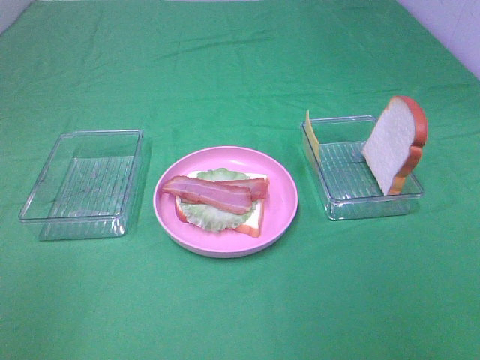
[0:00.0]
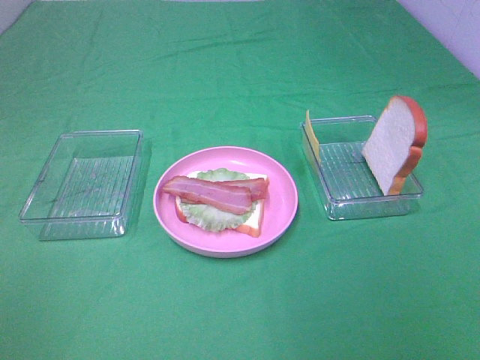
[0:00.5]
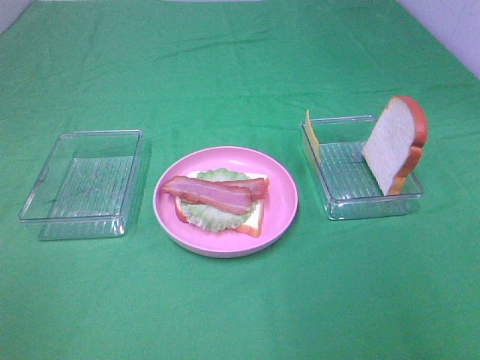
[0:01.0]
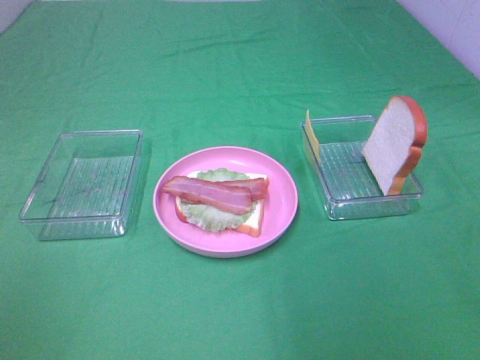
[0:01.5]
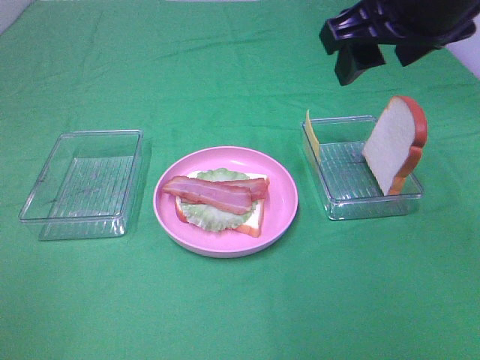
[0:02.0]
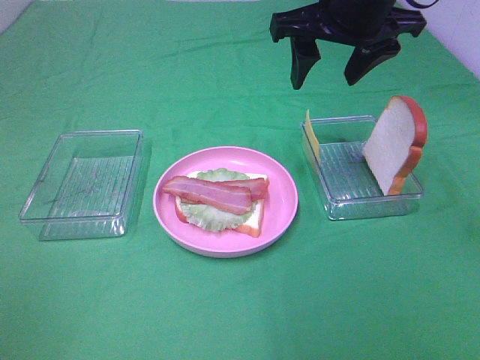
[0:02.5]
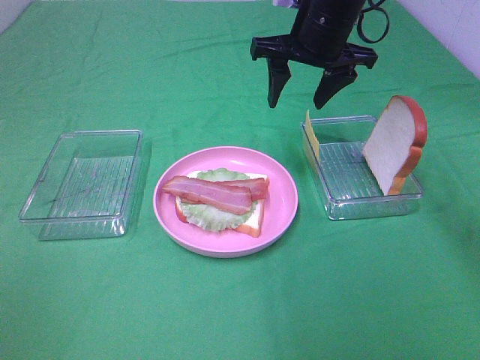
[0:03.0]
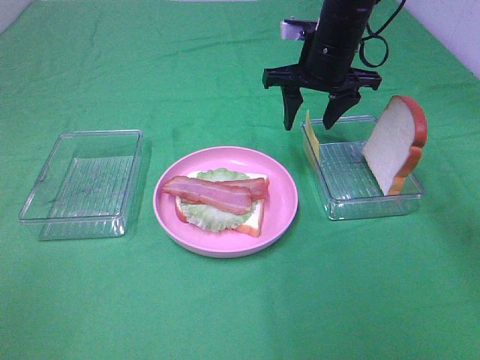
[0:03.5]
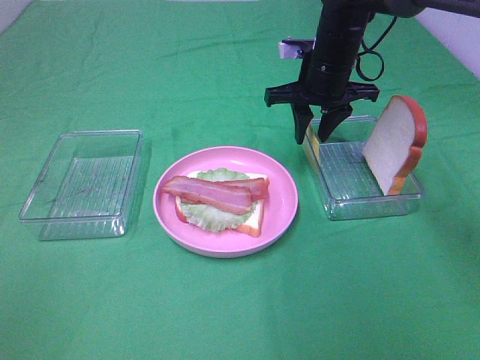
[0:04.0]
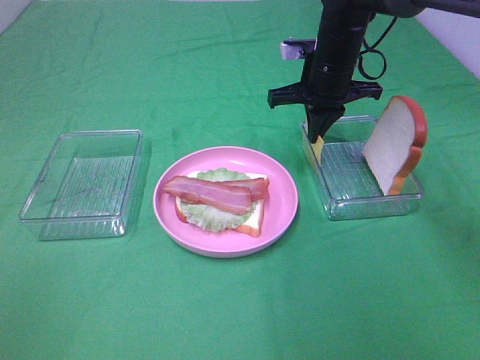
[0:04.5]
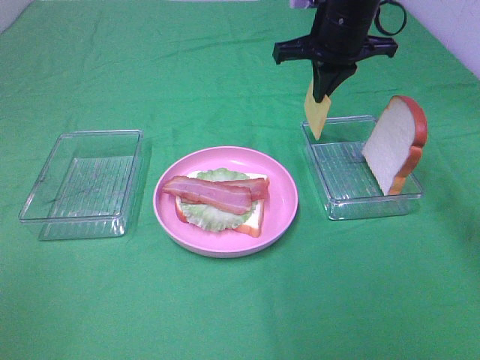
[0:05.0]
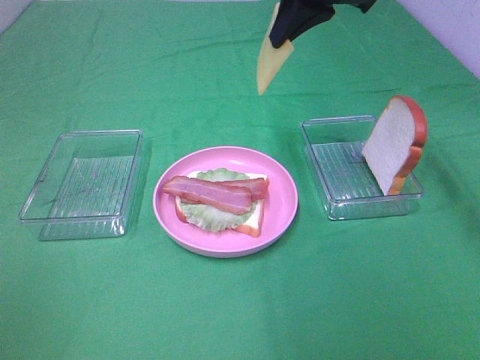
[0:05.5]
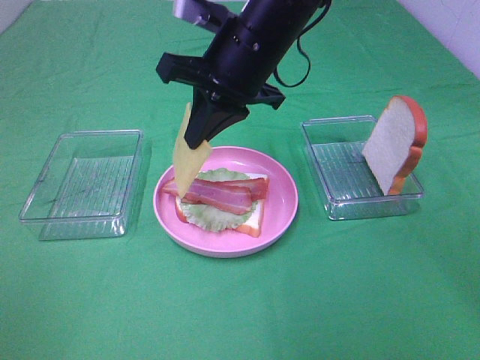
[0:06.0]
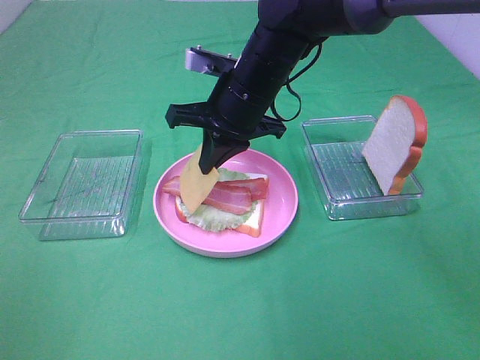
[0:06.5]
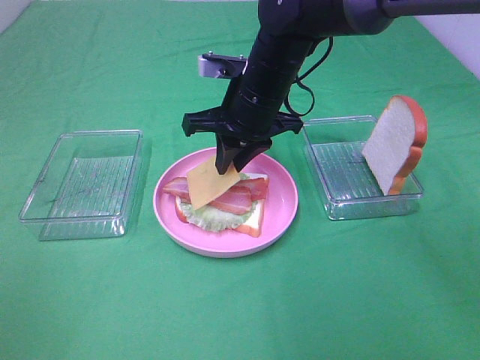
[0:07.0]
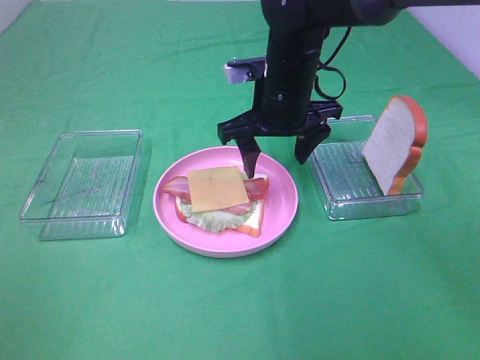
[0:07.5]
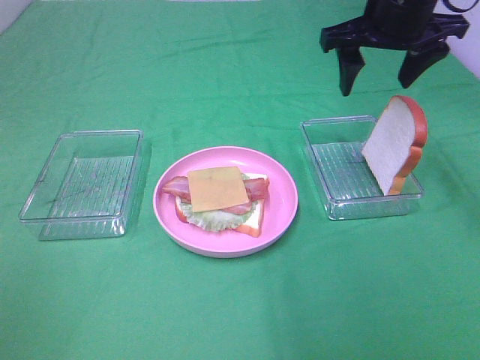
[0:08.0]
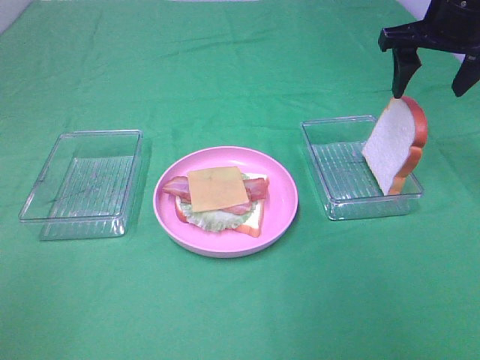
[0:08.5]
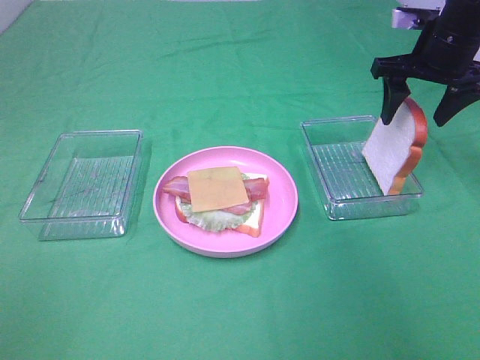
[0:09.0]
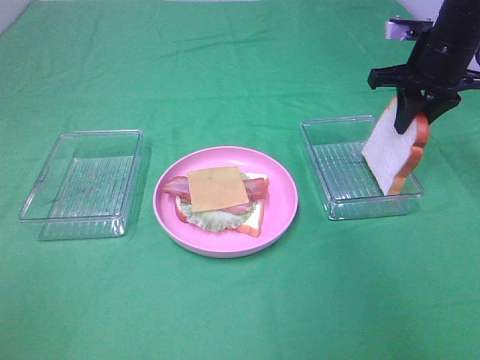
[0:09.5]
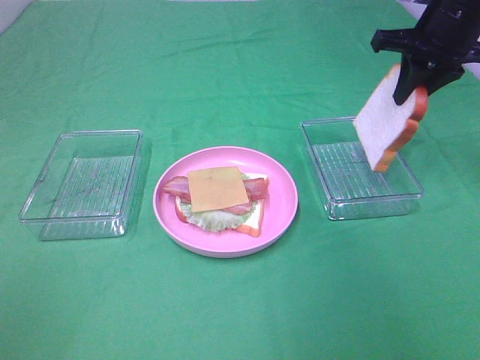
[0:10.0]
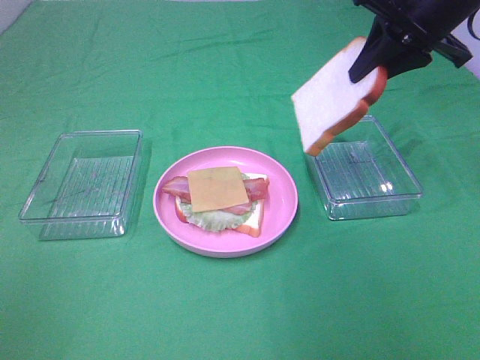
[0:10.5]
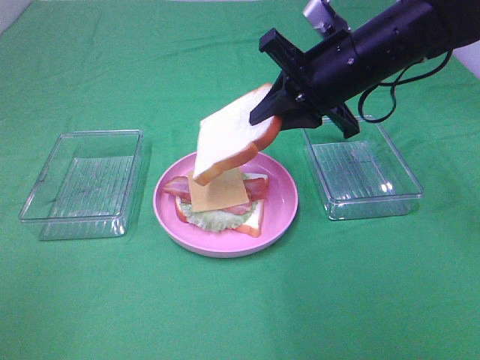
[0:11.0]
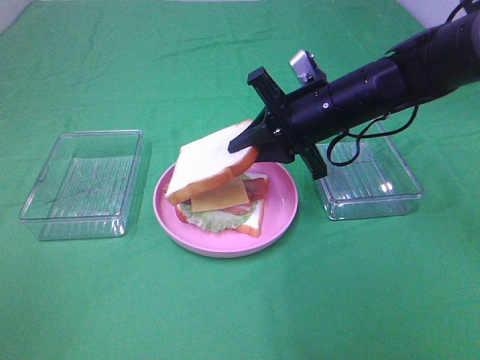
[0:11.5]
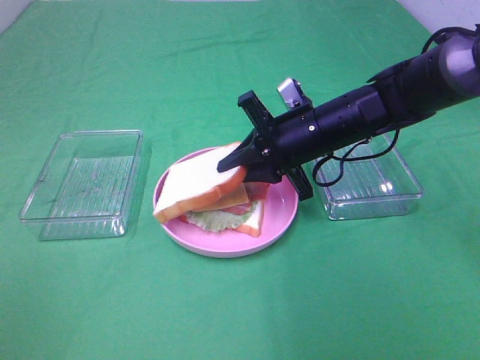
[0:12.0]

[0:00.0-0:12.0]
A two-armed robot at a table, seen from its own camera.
Task of the whole recording: Make sandwiches.
Step, 0:00.0 to 0:04.0: Right hand:grab the cheese slice.
Step, 0:04.5 to 0:07.0: Right hand:place the cheese slice on top of the bacon.
Step, 0:07.5 to 0:09.5: Right hand:grab the bread slice.
0:00.0 to 0:02.0: The right gripper moves forward and to the left, about 35 cm.
0:02.0 to 0:04.0: The right gripper shifts roughly 25 cm forward and downward, and closes up.
0:04.0 to 0:06.0: The right gripper goes about 15 cm backward, to the left and upward, and closes its fingers.
0:06.0 to 0:08.0: The right gripper moves to the right, about 15 cm, and opens up.
0:08.0 to 0:10.0: The right gripper travels to the right by some 5 cm, and closes its fingers.
0:10.0 to 0:12.0: The right gripper heads to the left, downward and backward, covering some 20 cm.

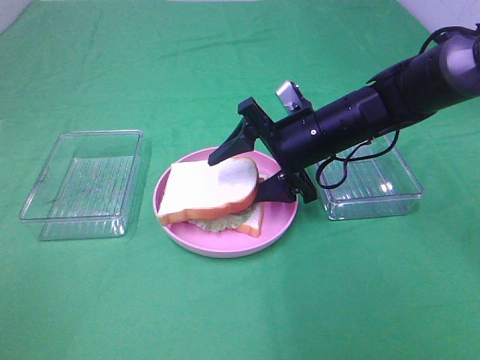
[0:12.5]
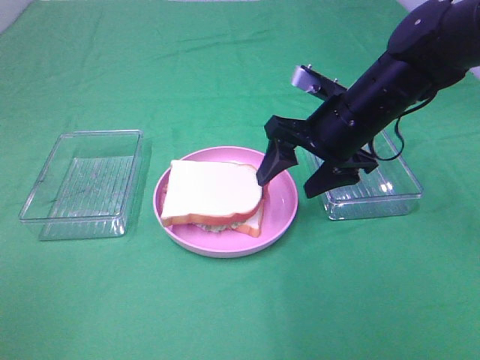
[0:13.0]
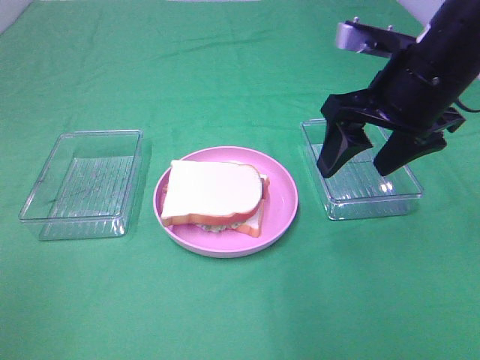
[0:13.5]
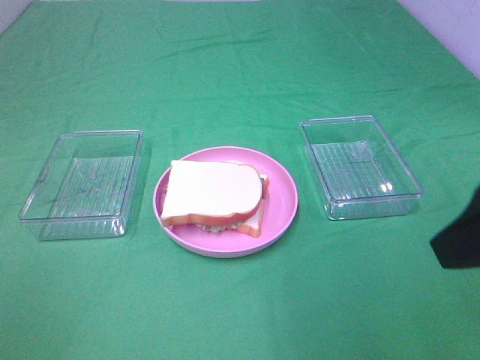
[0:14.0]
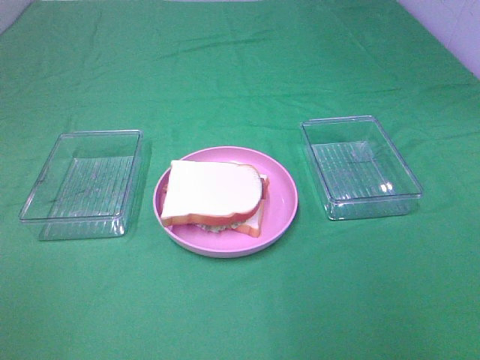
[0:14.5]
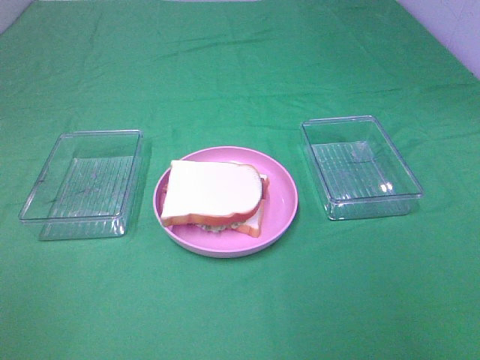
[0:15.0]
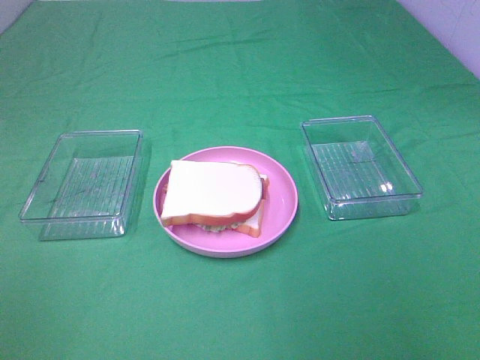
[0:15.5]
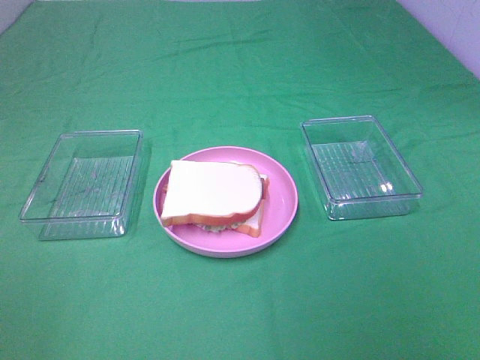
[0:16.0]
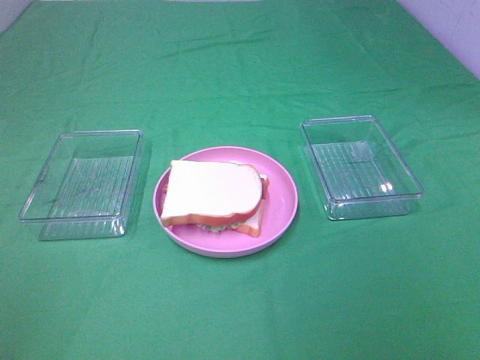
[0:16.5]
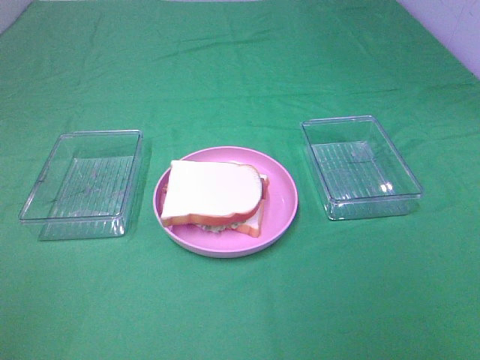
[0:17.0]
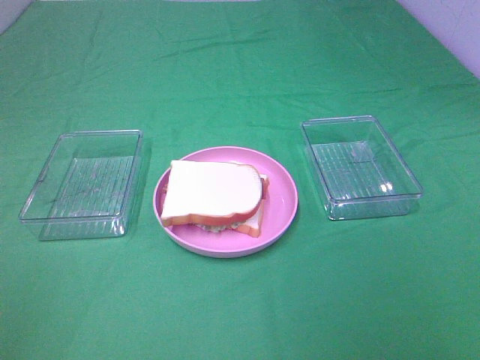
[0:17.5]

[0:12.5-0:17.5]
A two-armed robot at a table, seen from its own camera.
Task of the whole recording: Make sandwiches.
0:12.5 to 0:15.0: The right gripper travels backward, to the right and upward by about 40 cm.

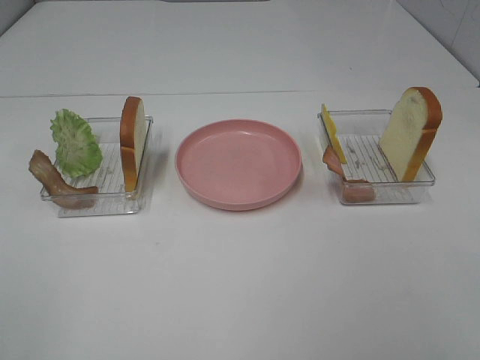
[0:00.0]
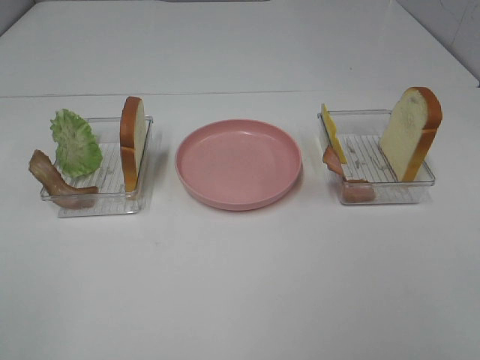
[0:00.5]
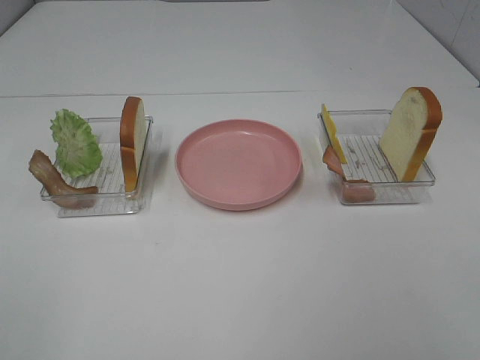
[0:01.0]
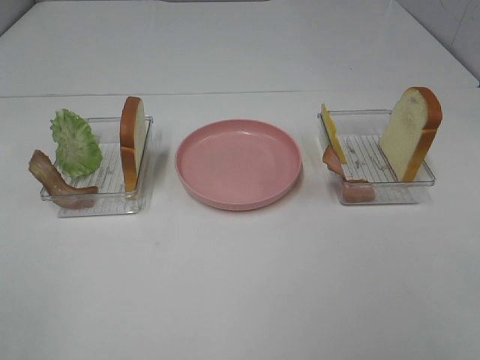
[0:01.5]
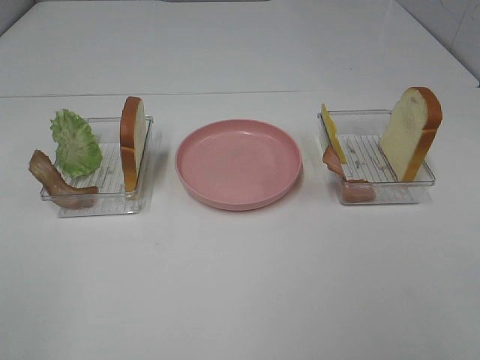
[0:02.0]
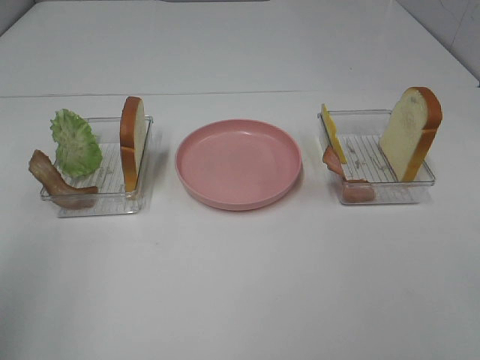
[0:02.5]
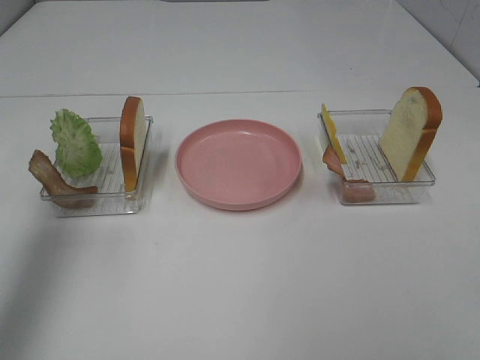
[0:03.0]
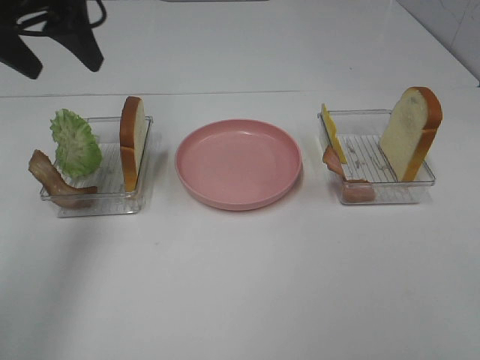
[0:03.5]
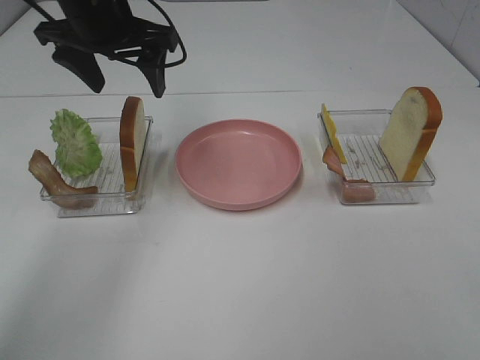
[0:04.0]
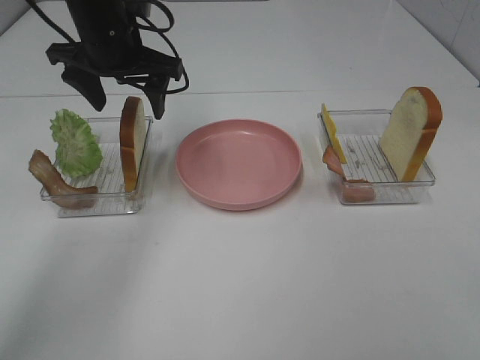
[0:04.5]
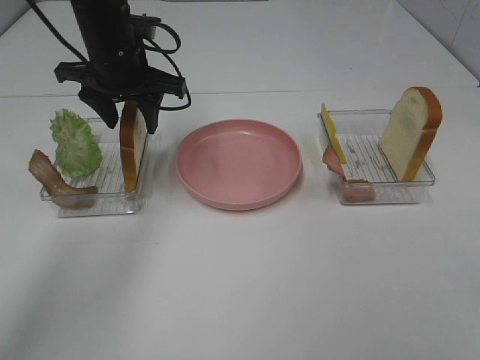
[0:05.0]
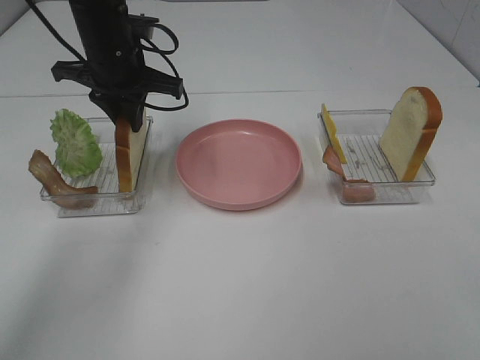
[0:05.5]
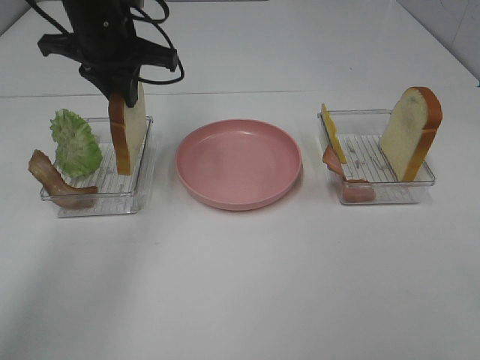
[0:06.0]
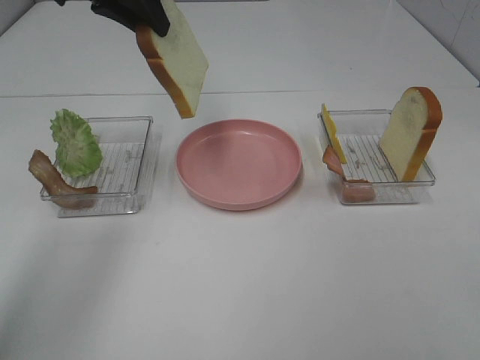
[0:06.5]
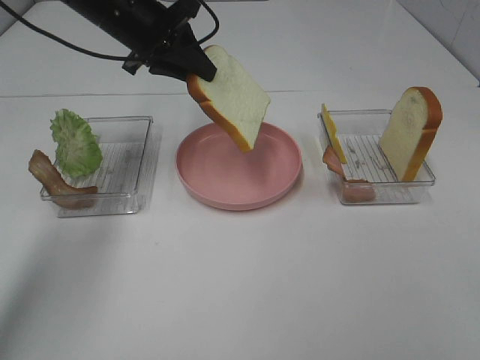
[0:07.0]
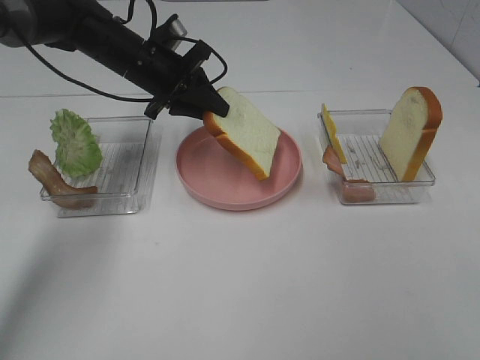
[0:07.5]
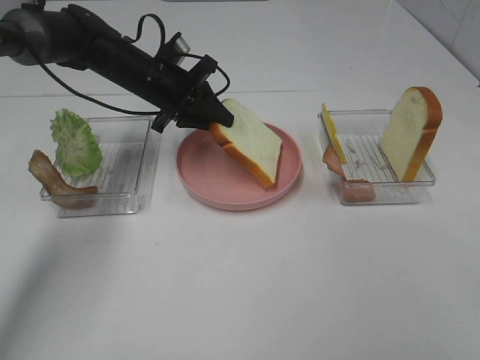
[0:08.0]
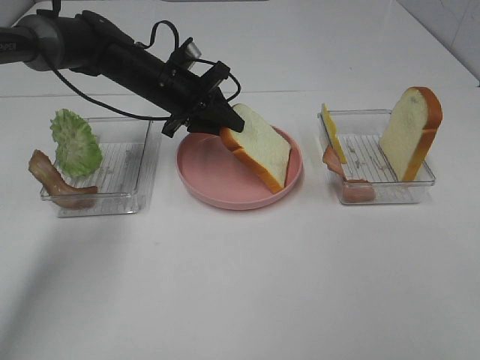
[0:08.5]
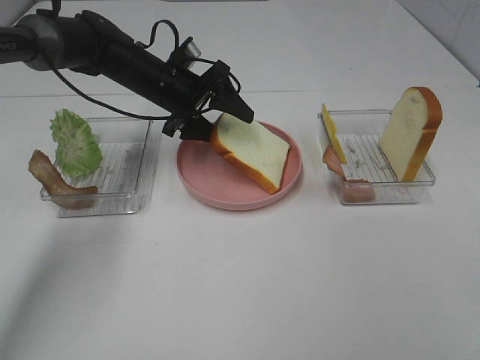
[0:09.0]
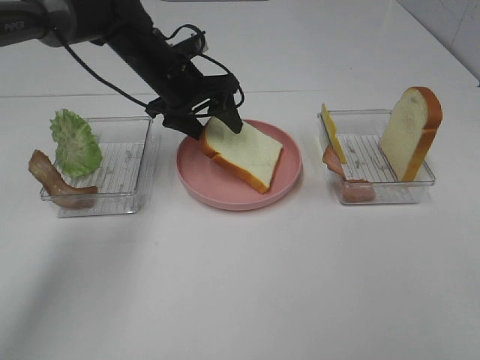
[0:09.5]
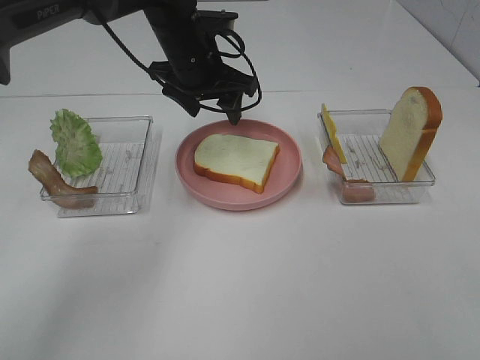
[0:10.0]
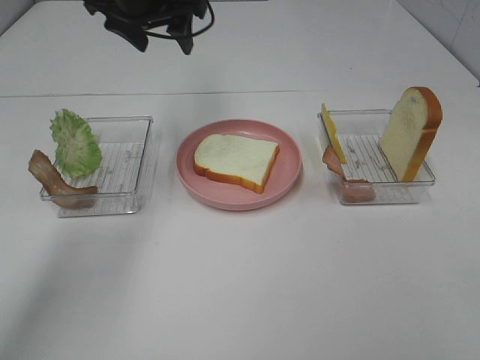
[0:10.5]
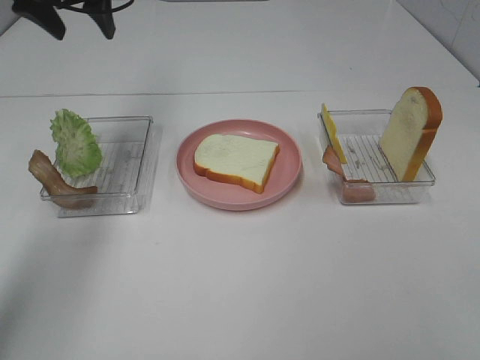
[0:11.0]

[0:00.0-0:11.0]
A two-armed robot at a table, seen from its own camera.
Task of the whole recording: Make sandwiches.
Step, 0:00.0 to 0:05.0: Left hand:grab the bread slice.
Step, 0:05.5 to 0:09.5: Left hand:place the bread slice on the plate.
0:02.0 to 0:03.5: The left gripper heads forward, covering roughly 40 cm.
0:03.5 to 0:05.5: The left gripper moves downward, to the right and forward, approximately 15 cm, and closes its fingers.
0:05.5 to 0:07.5: The left gripper travels upward and back again, approximately 10 cm each way.
0:07.5 to 0:09.0: The left gripper opens up.
0:09.0 to 0:11.0: The left gripper shifts approximately 20 cm upward and to the left.
